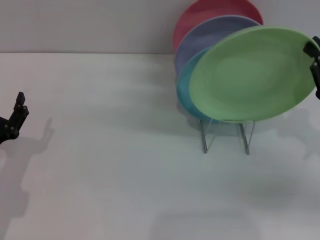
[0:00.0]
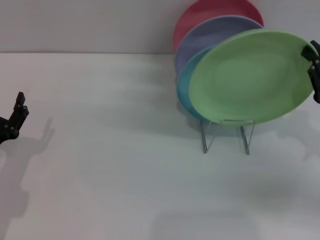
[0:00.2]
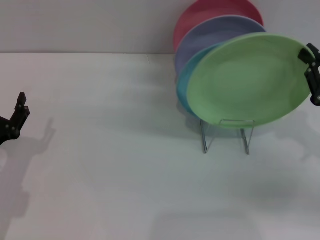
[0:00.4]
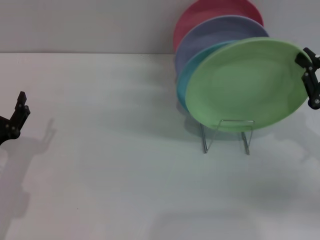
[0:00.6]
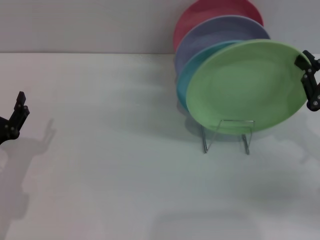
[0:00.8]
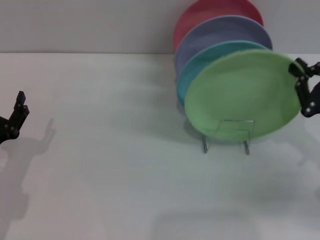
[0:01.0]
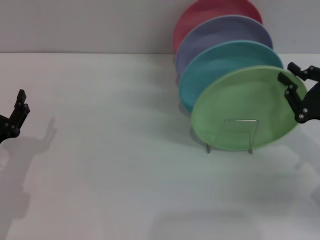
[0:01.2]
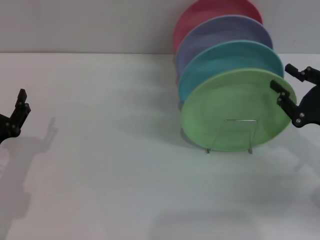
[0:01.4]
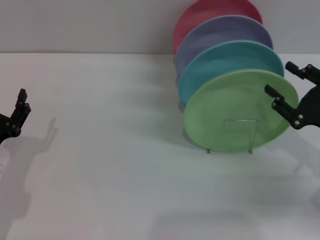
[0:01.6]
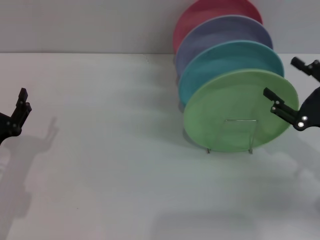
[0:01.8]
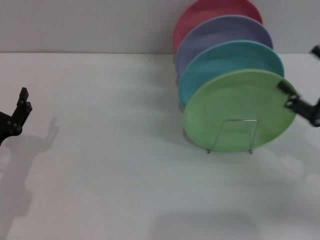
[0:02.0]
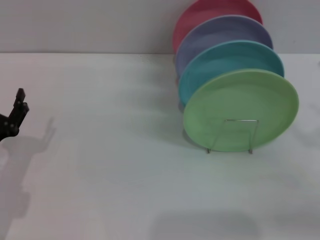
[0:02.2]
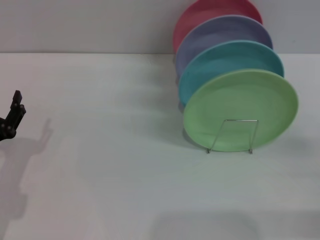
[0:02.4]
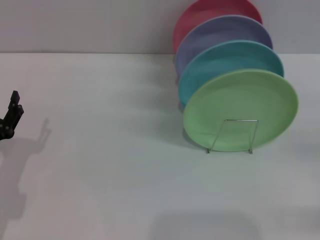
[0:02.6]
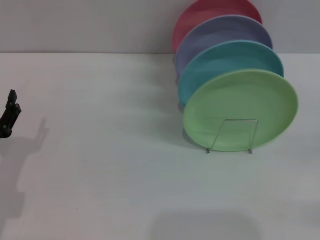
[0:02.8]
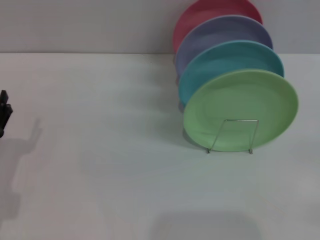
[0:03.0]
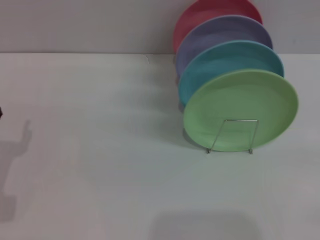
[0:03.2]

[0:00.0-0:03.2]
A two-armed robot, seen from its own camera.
Task of the whole recording: Grip the plate with one hand, pass it to the other, then set it on the shelf.
0:00.0 to 0:01.6: The right gripper opens its fingers.
0:01.6 to 0:03.2: The right gripper heads to the right, backward and downward, covering some 15 cm, and opens up.

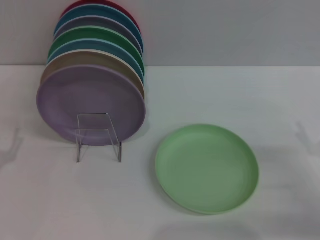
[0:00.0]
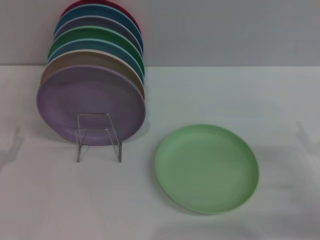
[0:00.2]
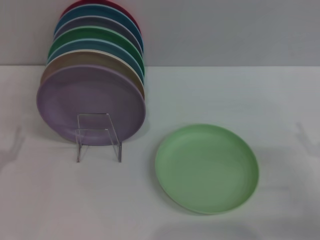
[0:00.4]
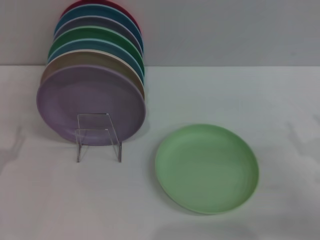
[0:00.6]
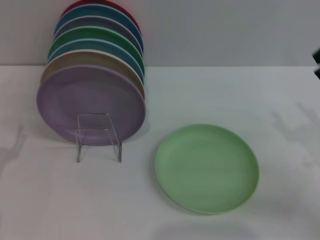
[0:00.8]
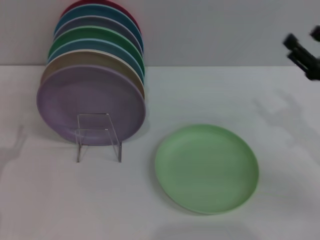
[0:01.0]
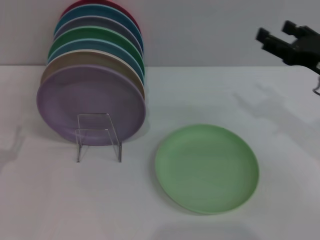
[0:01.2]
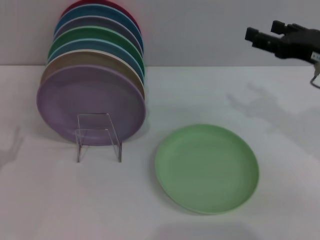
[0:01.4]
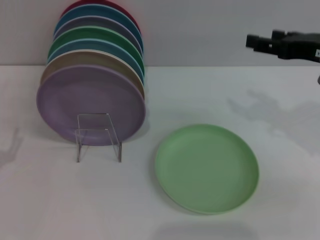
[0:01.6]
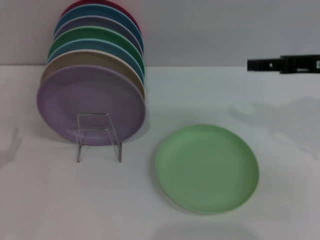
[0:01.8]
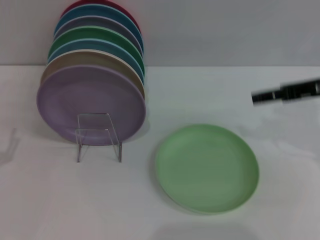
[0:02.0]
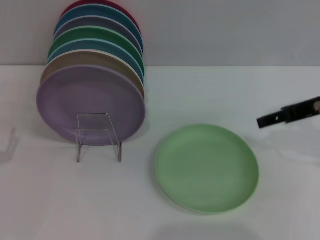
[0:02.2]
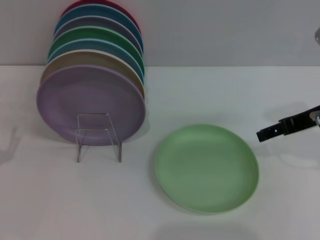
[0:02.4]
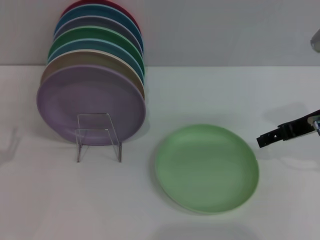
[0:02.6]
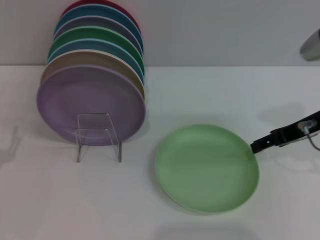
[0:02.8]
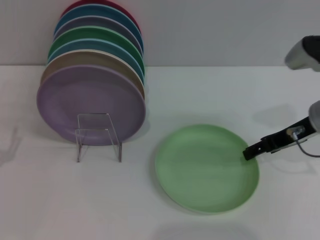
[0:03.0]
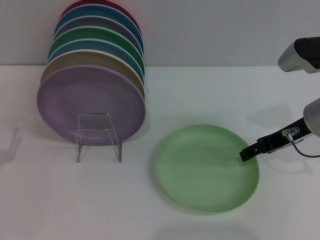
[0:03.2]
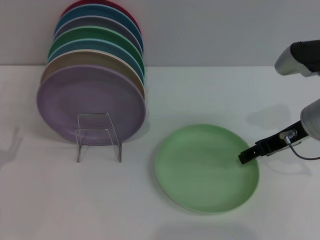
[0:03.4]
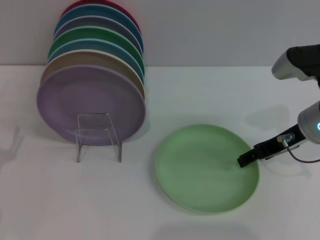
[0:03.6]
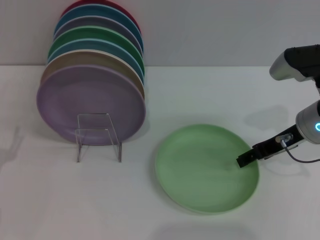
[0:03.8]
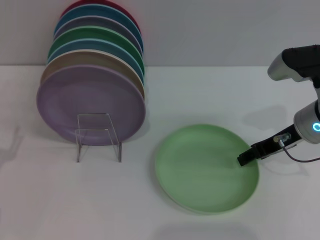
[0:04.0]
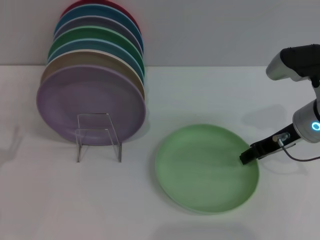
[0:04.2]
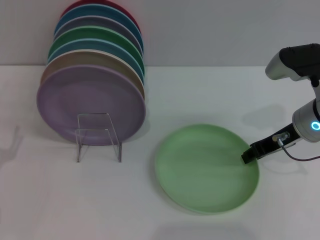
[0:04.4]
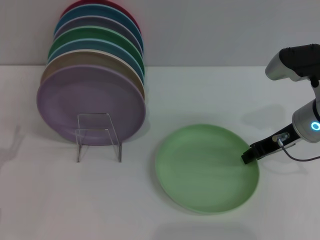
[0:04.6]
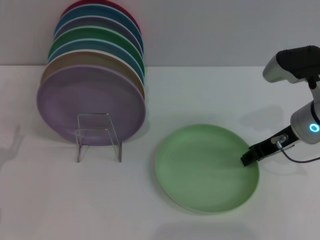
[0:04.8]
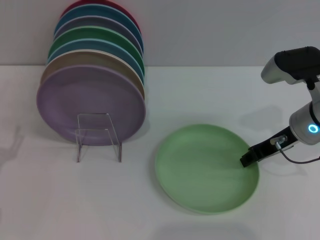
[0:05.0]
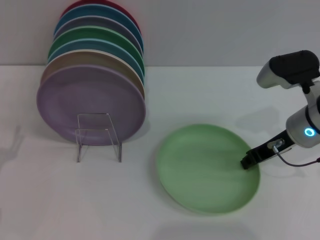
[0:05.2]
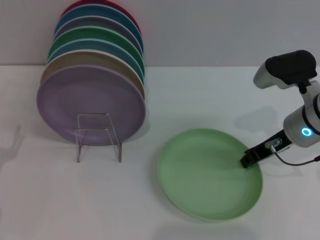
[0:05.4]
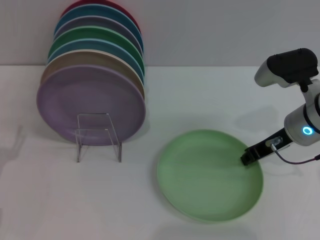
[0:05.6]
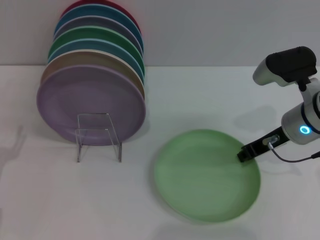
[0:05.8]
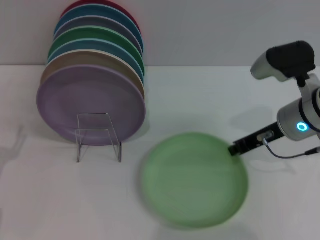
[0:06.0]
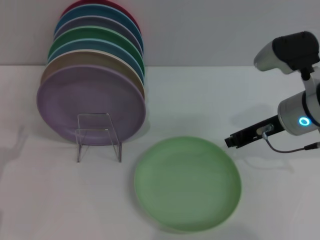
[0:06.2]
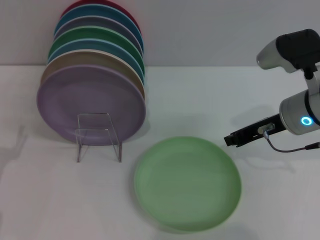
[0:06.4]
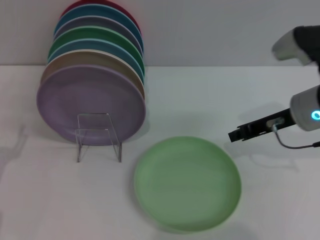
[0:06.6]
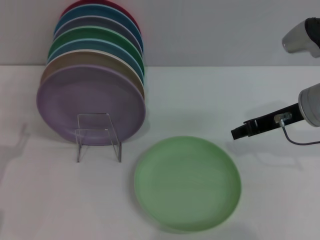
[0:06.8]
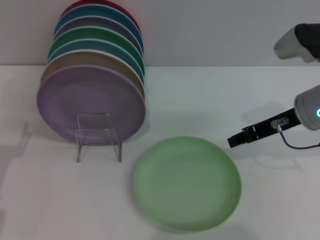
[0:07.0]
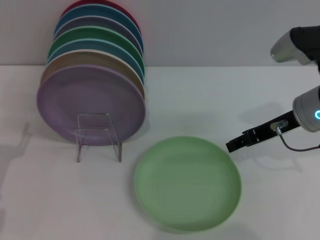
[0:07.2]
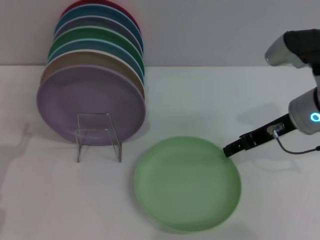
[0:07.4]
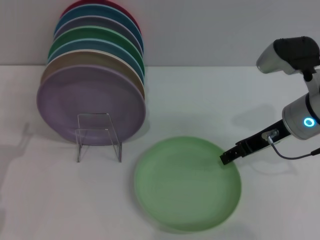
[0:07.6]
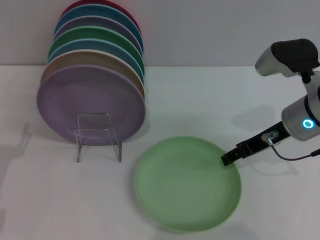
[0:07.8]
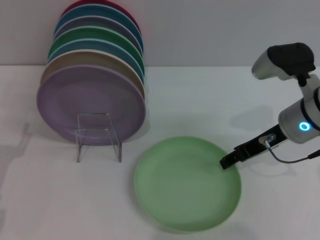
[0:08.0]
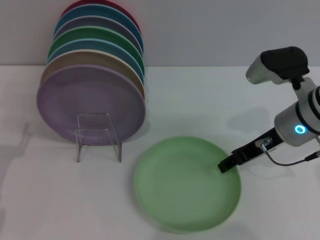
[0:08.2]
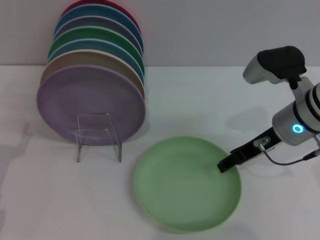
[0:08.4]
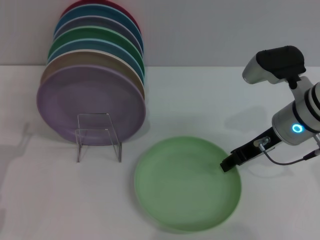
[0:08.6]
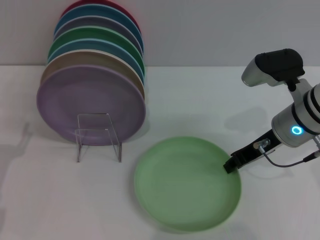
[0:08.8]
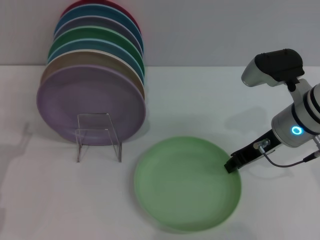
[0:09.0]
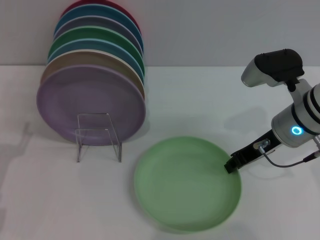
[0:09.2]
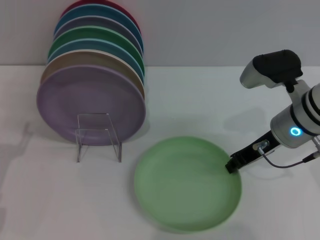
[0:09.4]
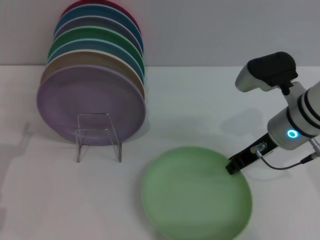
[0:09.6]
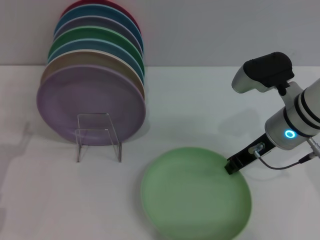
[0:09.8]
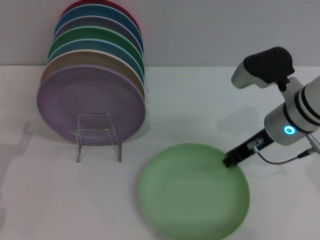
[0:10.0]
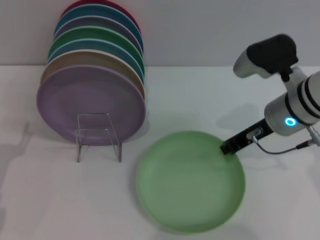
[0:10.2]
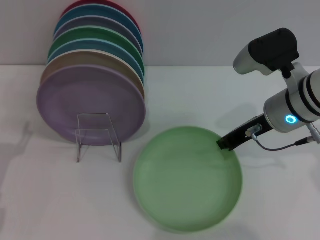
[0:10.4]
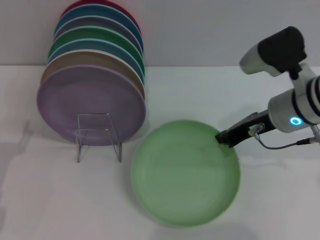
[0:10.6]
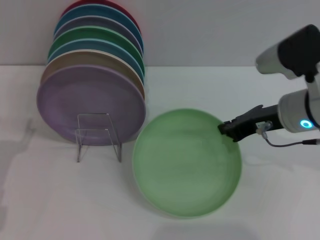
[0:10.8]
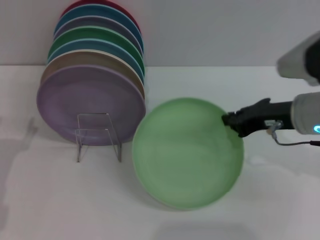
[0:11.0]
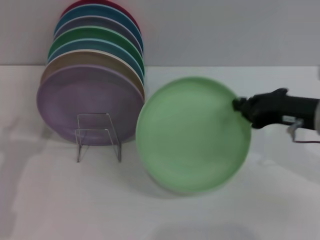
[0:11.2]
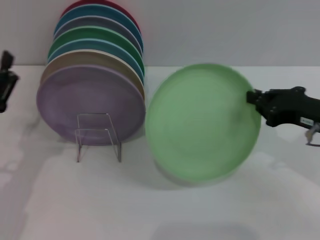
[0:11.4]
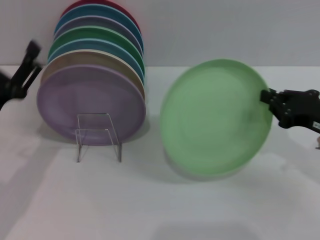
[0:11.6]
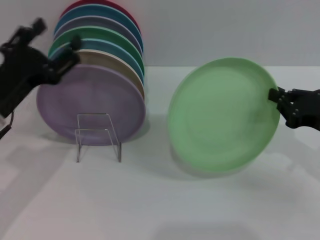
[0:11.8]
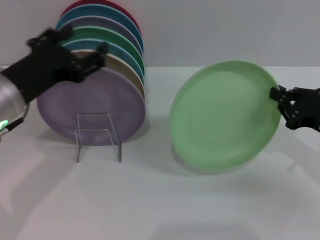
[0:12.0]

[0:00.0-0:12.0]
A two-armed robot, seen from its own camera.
Task of the whole recording: Grip the plate with one hand, pass it to the other, then set it on the shelf.
0:00.0 to 0:01.6: The right gripper is displaced upward and forward by approximately 20 cm.
0:01.6 to 0:03.0: The right gripper travels downward by roughly 5 cm.
0:03.0 to 0:04.4: The right gripper closes up.
0:04.4 to 0:06.0: The right gripper closes its fingers.
0:06.0 to 0:07.6: The right gripper opens.
0:07.6 to 0:09.0: The right gripper closes up.
0:09.0 to 0:10.4: The grippers stay close to where they were, moving slightly.
0:10.4 to 0:12.0: The left gripper travels upward, to the right and forward by approximately 15 cm; the right gripper travels to the right and backward by approximately 15 cm.

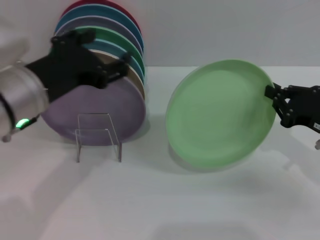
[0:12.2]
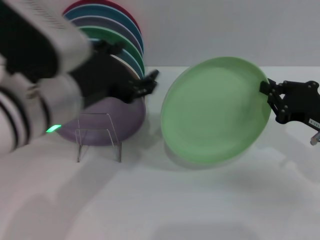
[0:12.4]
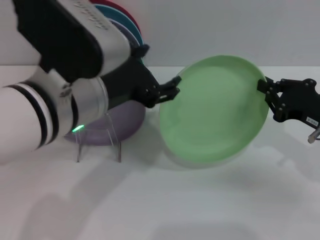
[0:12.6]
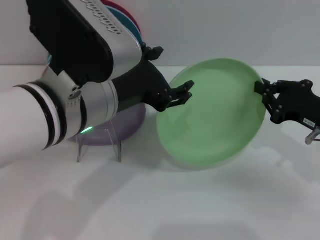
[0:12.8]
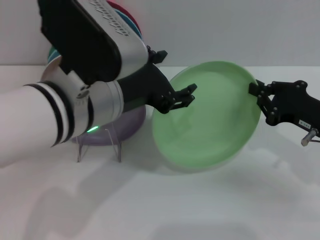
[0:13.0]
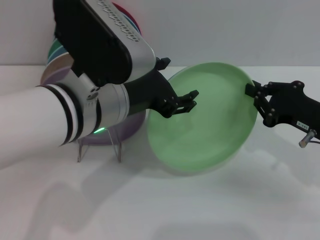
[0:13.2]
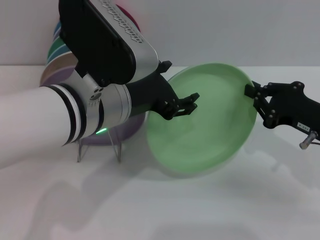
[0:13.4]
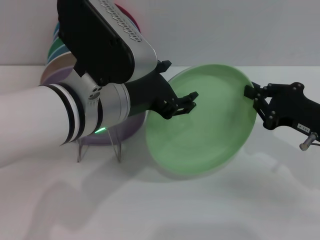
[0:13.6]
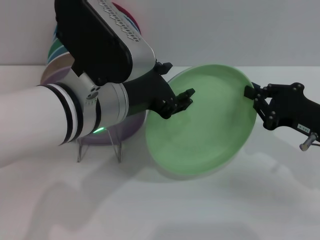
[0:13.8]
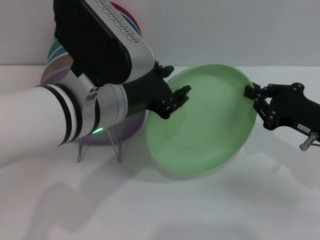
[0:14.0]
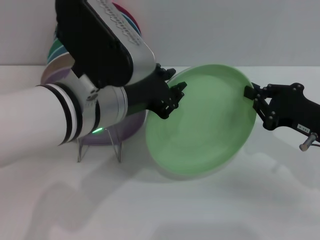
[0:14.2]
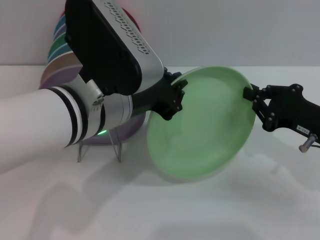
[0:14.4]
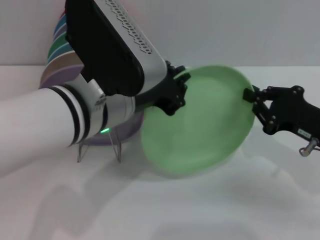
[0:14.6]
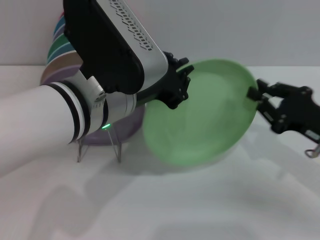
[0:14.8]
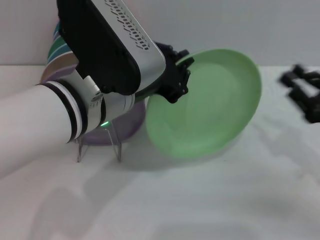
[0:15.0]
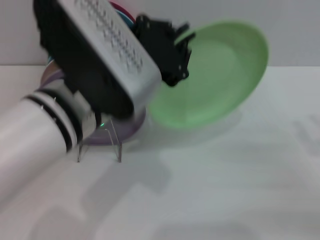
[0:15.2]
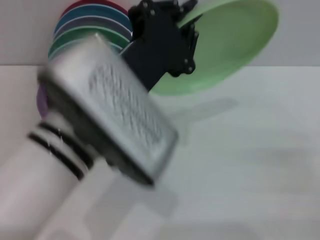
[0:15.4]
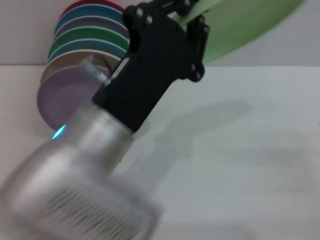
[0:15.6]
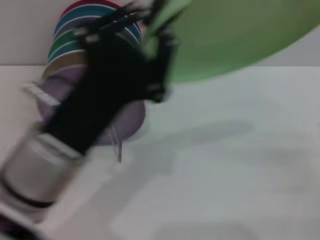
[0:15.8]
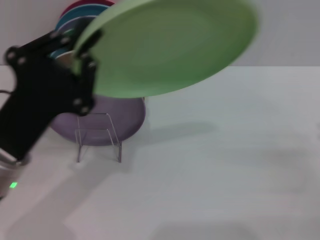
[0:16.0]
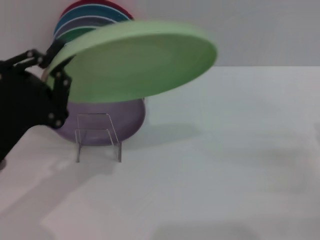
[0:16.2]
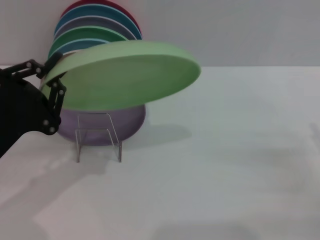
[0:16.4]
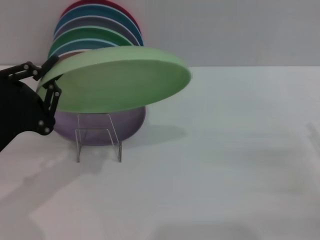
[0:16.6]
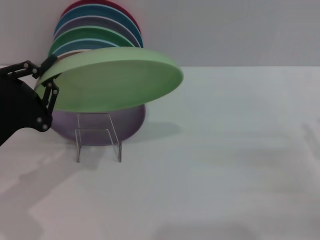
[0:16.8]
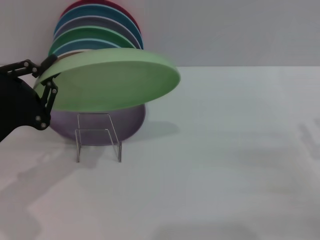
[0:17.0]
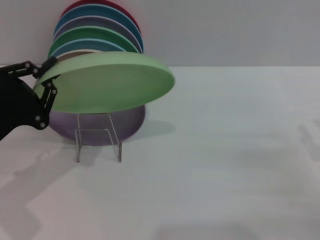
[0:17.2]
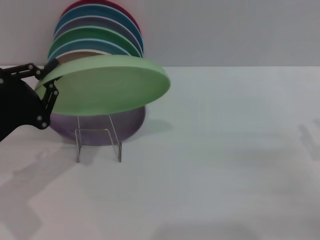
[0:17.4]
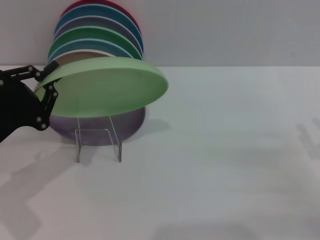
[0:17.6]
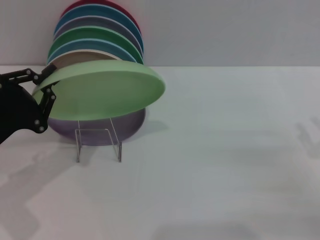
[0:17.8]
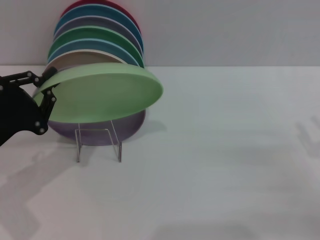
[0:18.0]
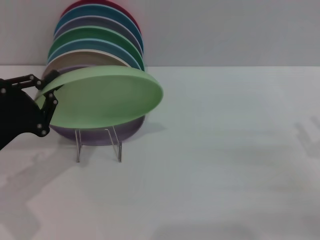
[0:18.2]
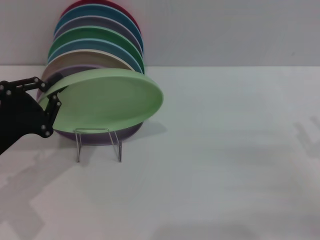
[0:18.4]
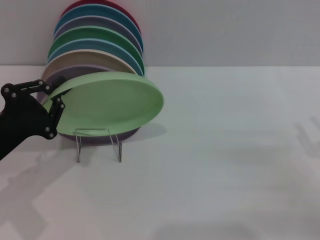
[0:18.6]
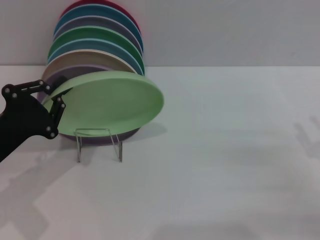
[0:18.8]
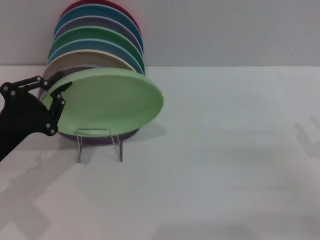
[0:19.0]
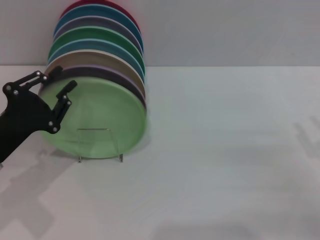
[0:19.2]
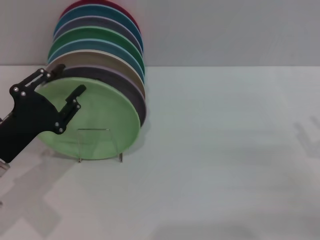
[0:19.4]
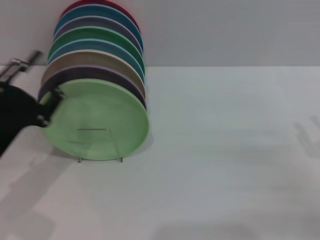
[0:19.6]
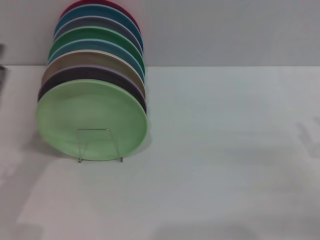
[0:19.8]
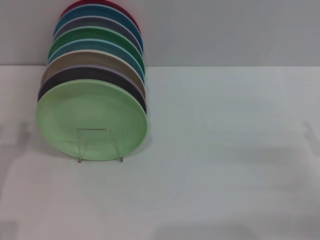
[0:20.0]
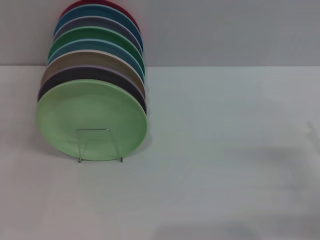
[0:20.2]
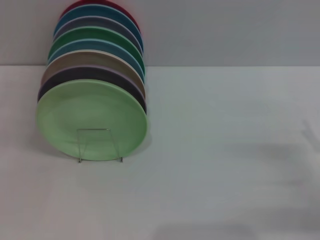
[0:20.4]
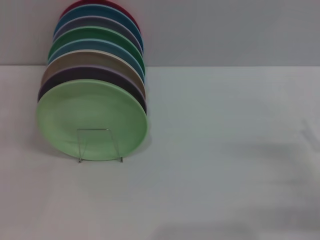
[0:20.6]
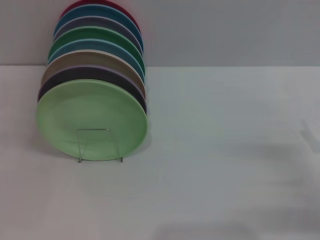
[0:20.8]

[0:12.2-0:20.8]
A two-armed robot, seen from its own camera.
Task of the whole recording: Grip the plate with one hand, pass it to the other, then set it on the shelf.
Step, 0:12.4 to 0:15.8: Pass the plate from the right gripper to the left gripper.
Step, 0:16.0 to 0:19.8: Place the plate on the shelf with the left gripper.
0:12.2 to 0:13.6: The left gripper shifts approximately 10 cm to the right.
0:13.6 to 0:15.0: The left gripper closes its fingers.
0:15.0 to 0:16.6: The right gripper ends up about 5 cm from where it was. Meanwhile the left gripper travels to the left and downward by some 20 cm.
0:16.6 to 0:18.0: The grippers make only small movements.
0:18.0 to 0:19.4: The grippers make only small movements.
0:19.4 to 0:20.8: The left gripper moves to the left, roughly 10 cm, and opens up.
